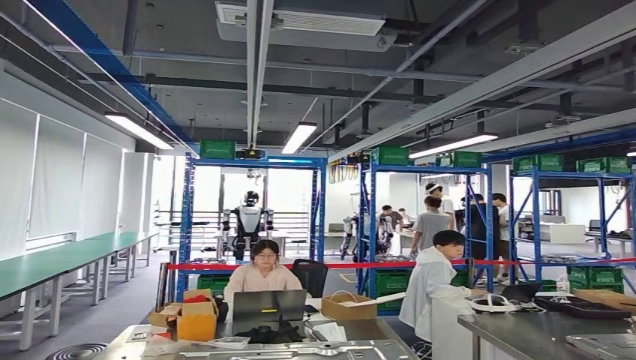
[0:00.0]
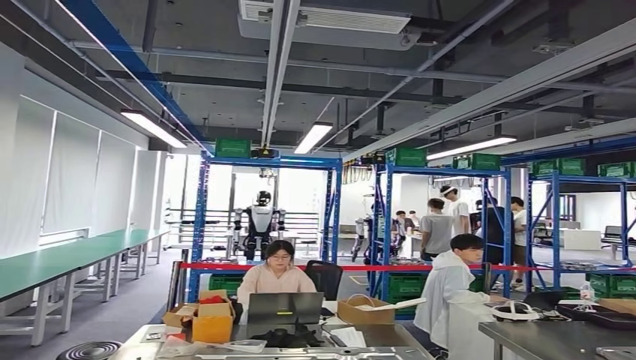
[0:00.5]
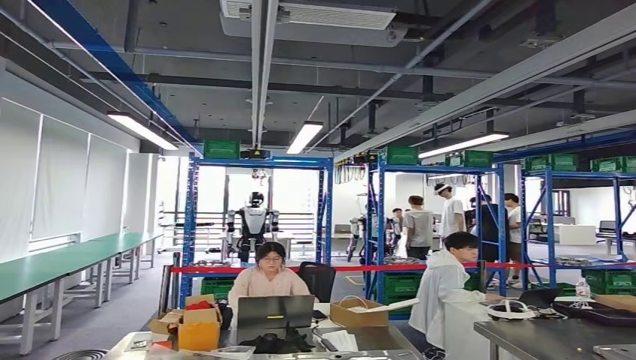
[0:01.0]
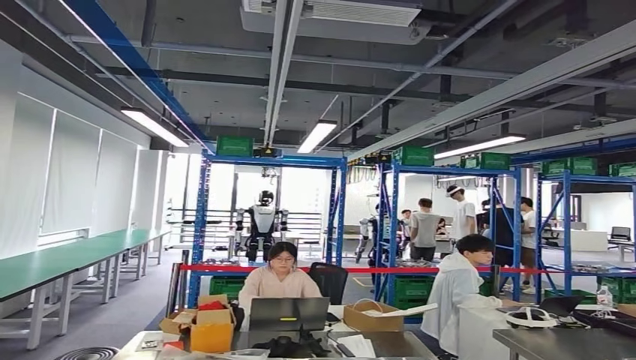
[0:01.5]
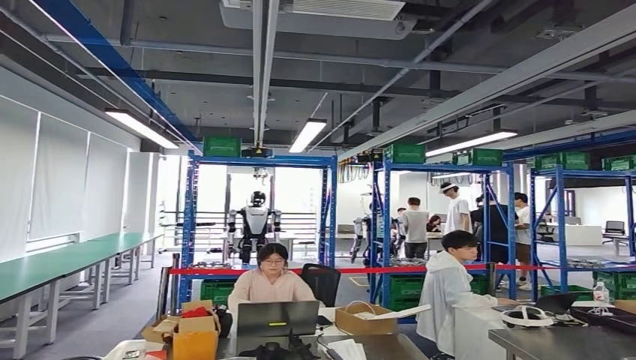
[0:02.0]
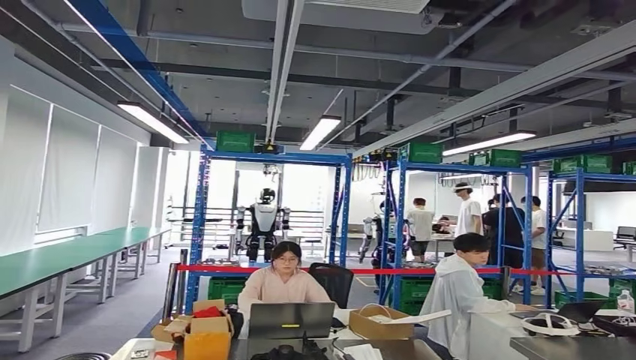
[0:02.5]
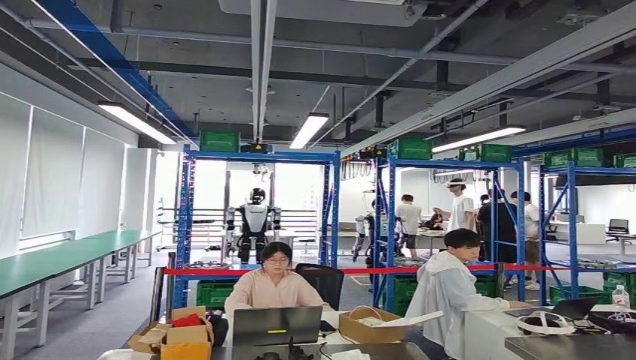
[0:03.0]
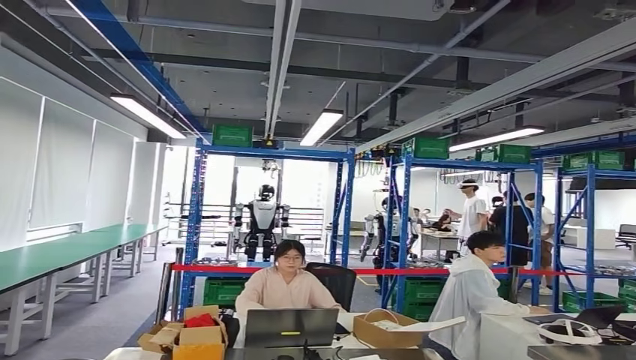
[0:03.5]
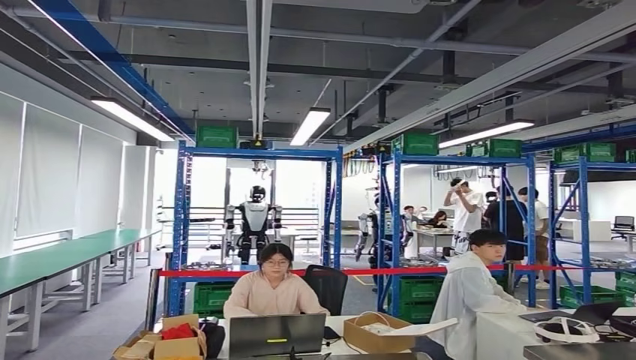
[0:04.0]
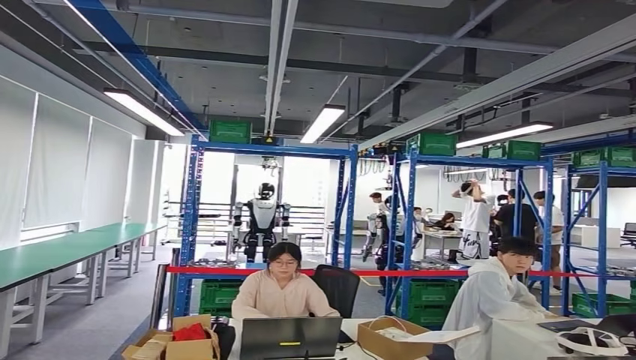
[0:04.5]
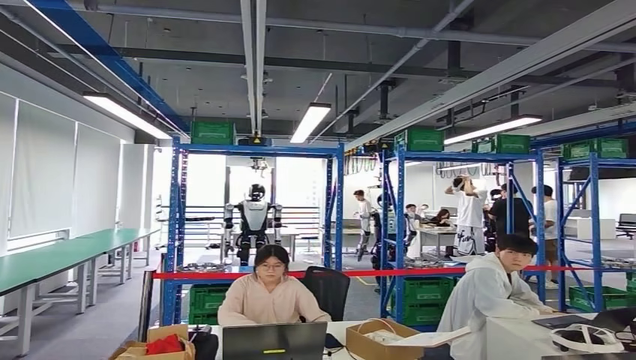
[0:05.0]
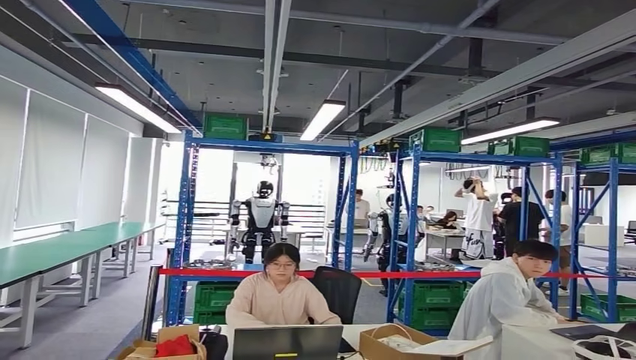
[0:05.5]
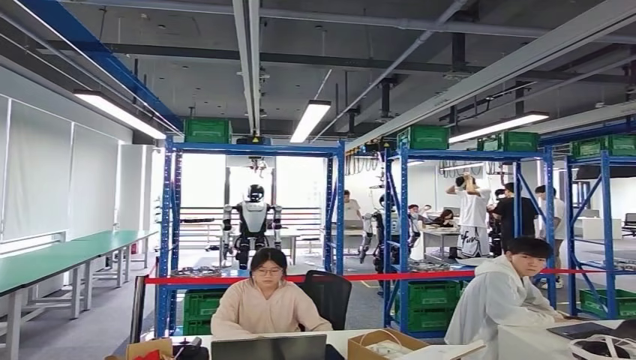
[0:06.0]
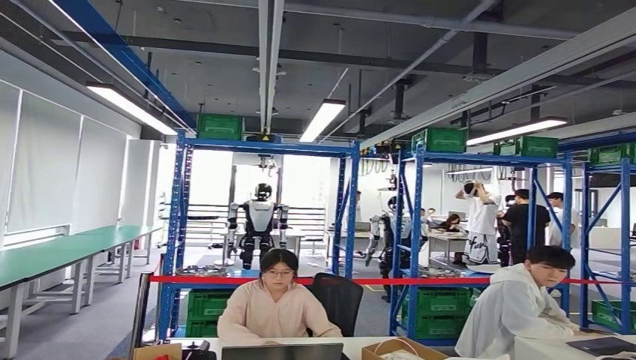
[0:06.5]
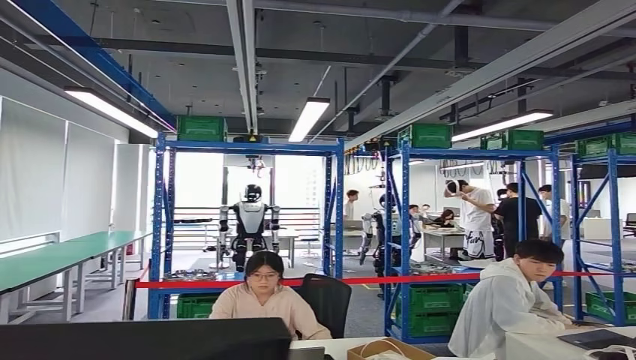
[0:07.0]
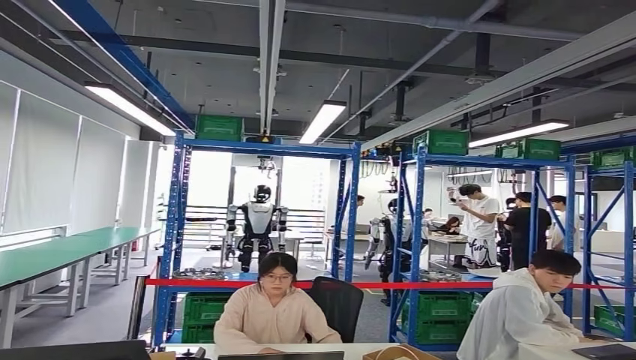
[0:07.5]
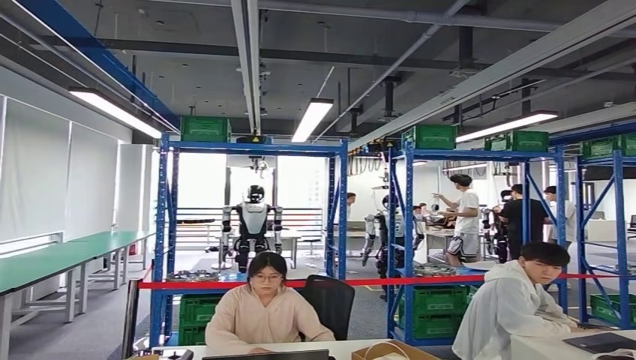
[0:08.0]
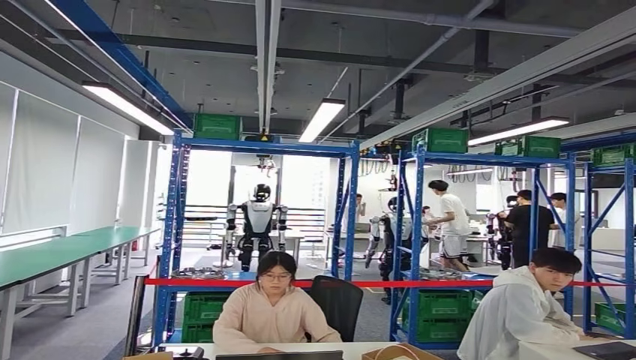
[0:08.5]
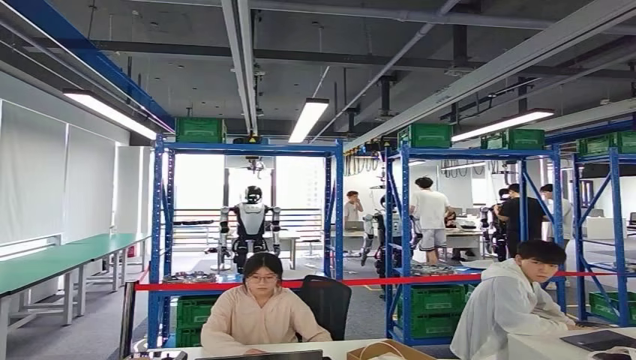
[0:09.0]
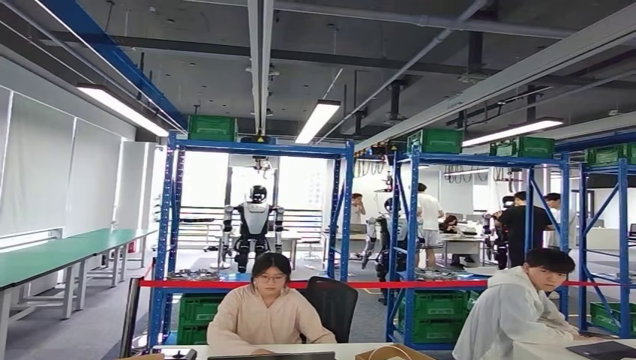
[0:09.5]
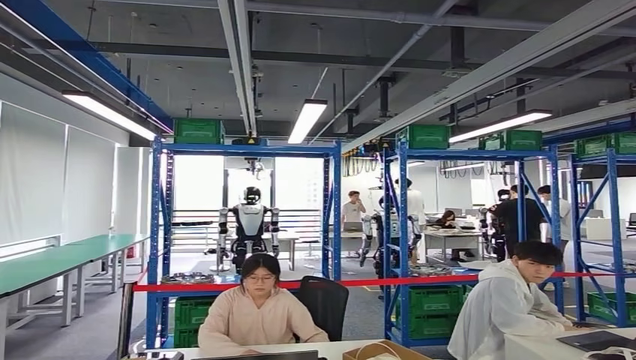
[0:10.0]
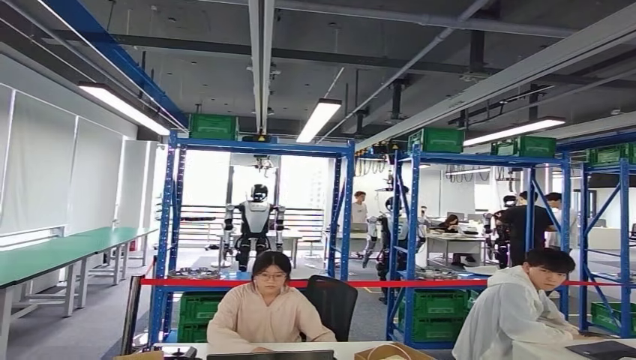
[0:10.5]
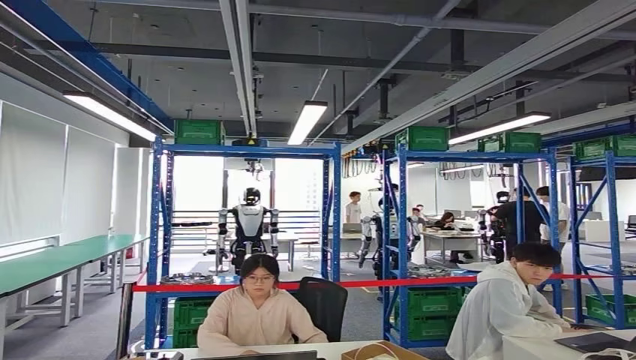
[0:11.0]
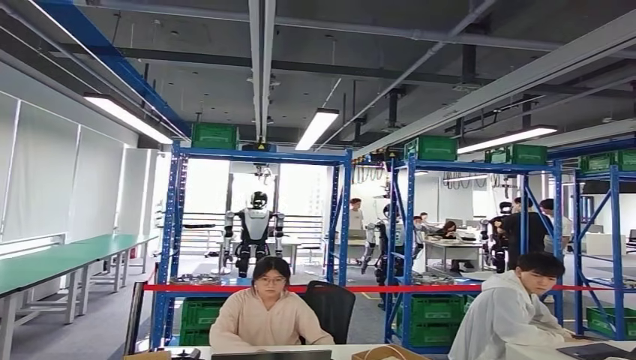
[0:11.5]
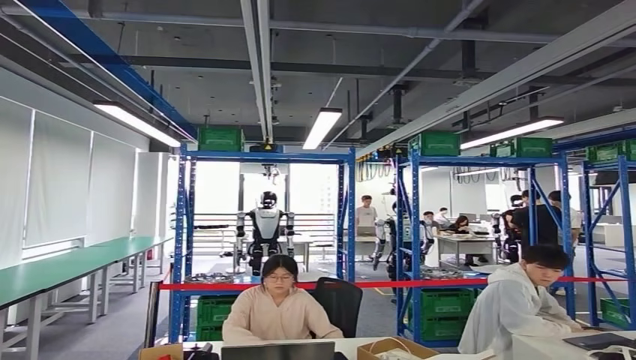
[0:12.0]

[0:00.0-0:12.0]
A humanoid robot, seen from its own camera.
Step, 0:00.0 to 0:08.5: Move the small component to the workbench.
Step, 0:09.0 to 0:11.0: Insert the small component into the corresponding slot on the workbench.

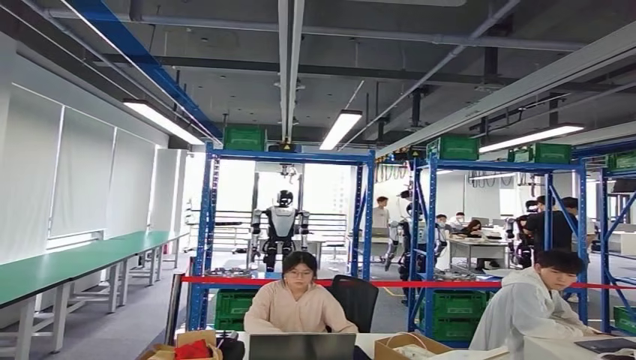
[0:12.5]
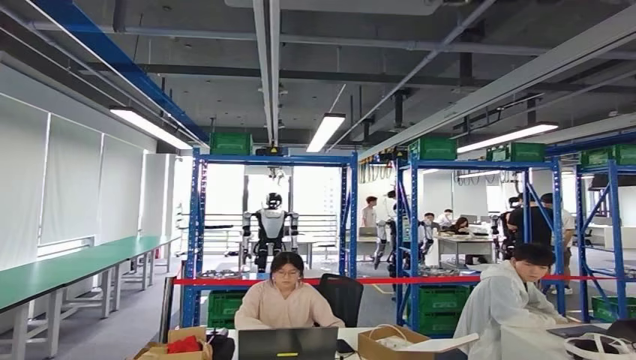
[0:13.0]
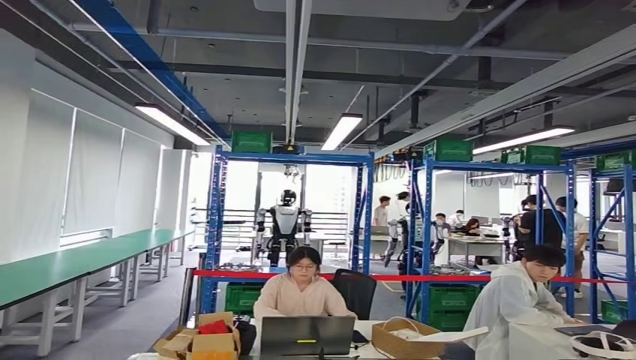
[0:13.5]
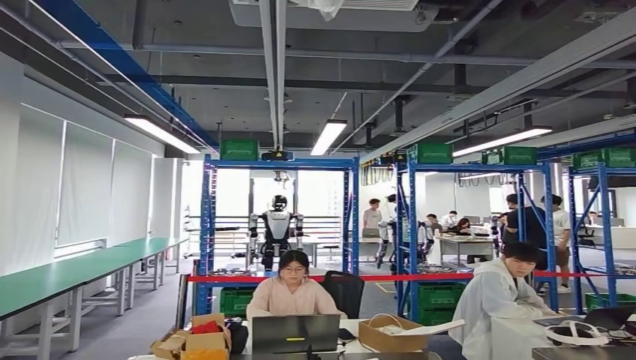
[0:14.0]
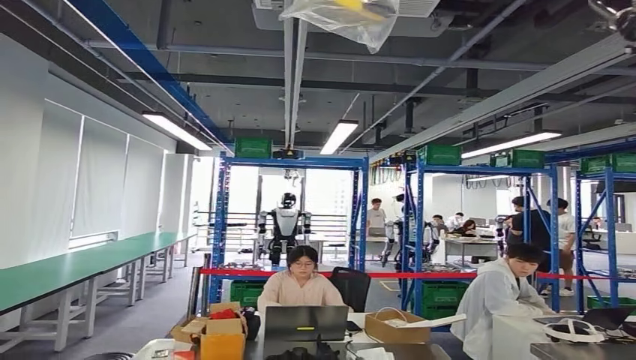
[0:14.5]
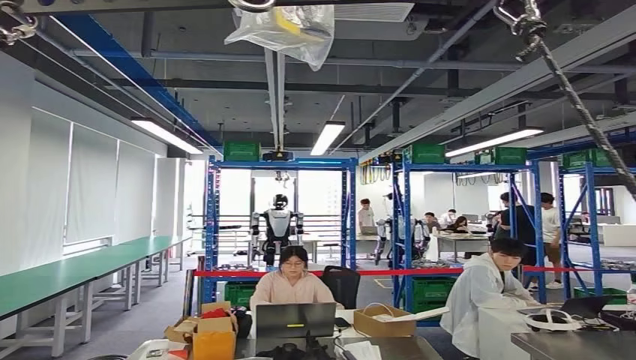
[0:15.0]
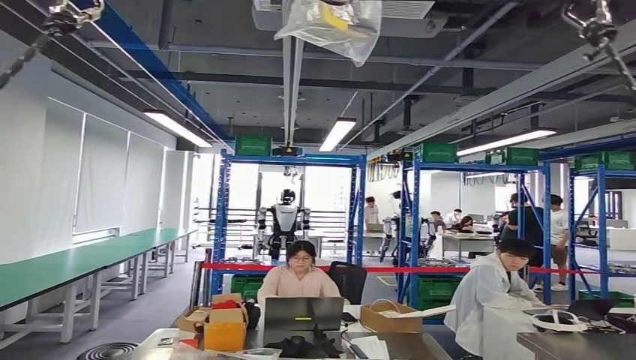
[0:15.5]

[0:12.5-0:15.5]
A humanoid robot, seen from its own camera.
Step, 0:12.5 to 0:15.5: Move to the initial position at the workbench.
